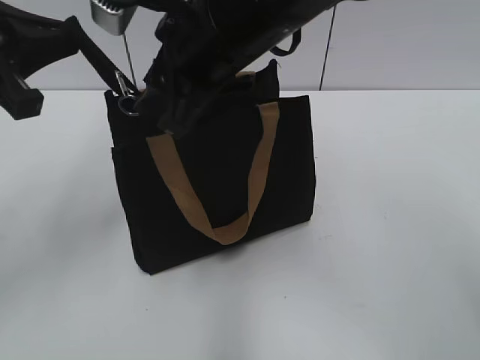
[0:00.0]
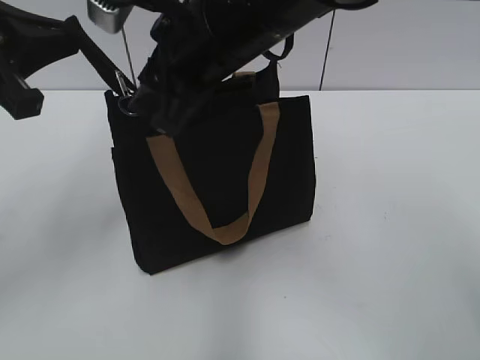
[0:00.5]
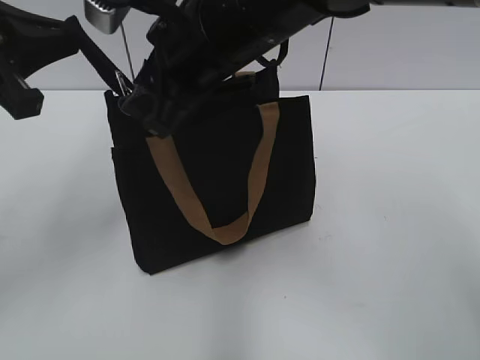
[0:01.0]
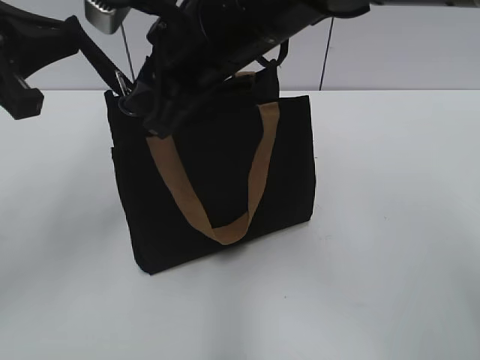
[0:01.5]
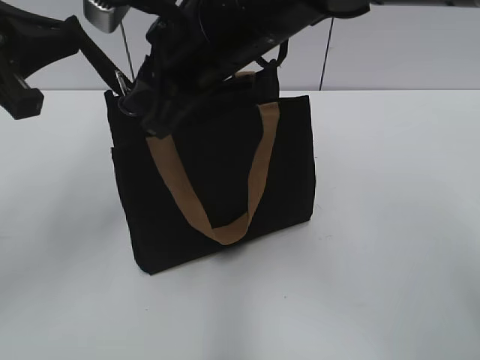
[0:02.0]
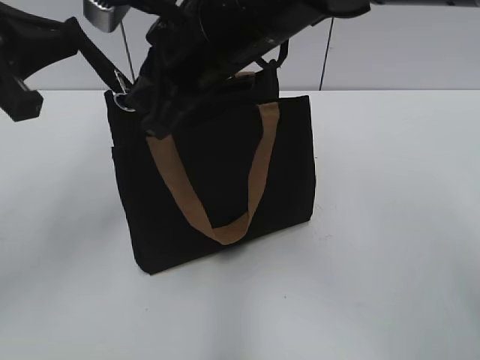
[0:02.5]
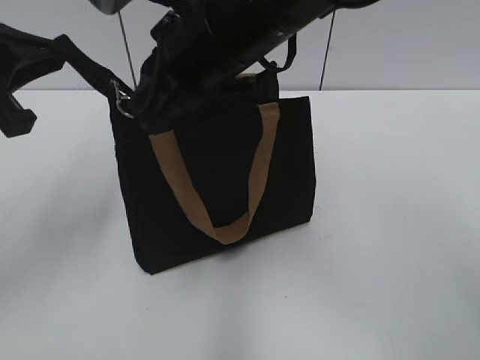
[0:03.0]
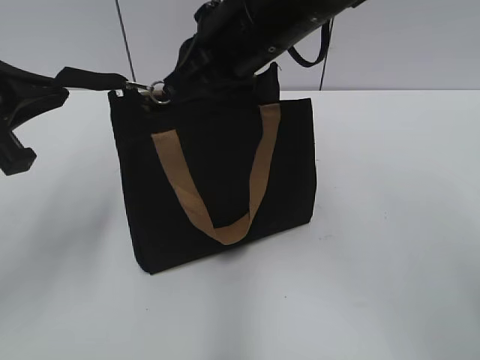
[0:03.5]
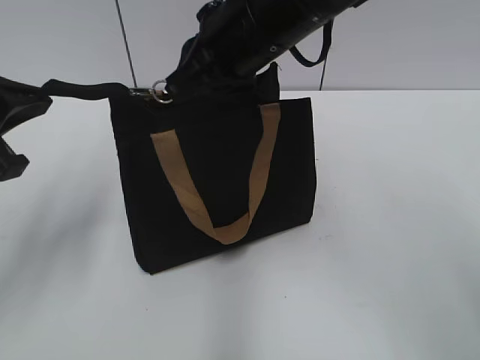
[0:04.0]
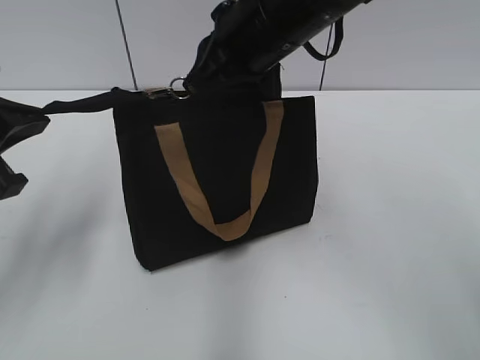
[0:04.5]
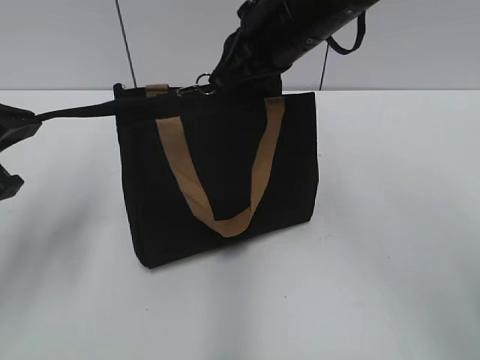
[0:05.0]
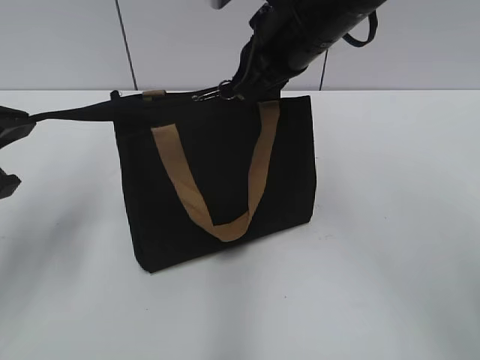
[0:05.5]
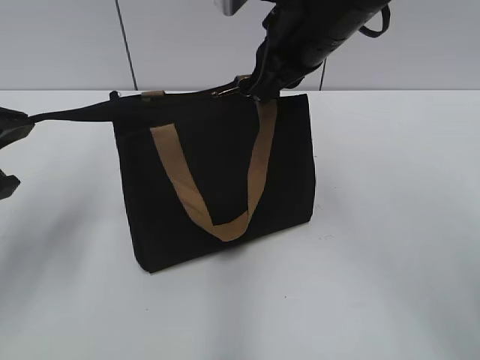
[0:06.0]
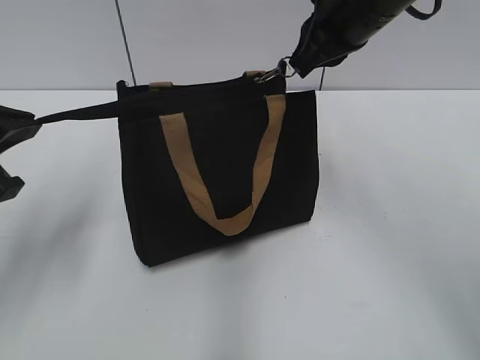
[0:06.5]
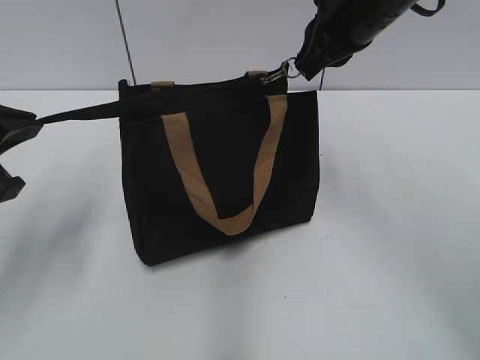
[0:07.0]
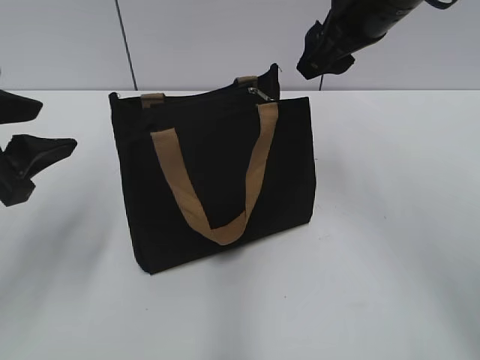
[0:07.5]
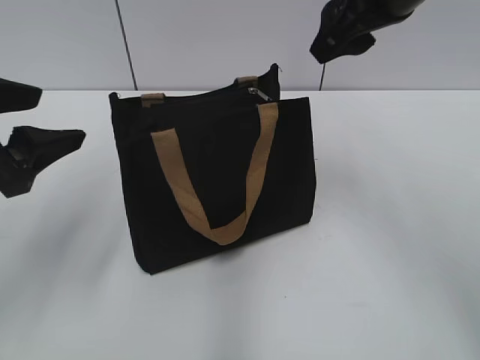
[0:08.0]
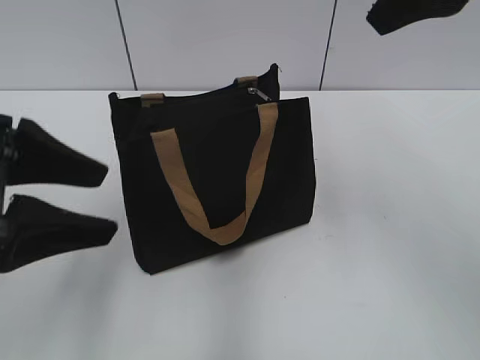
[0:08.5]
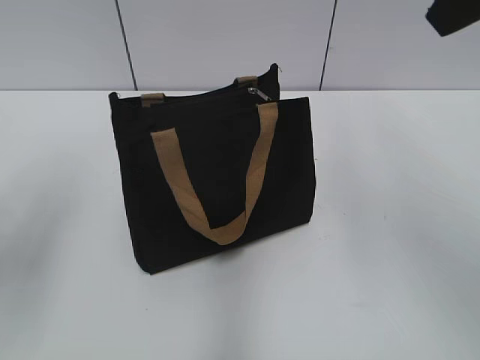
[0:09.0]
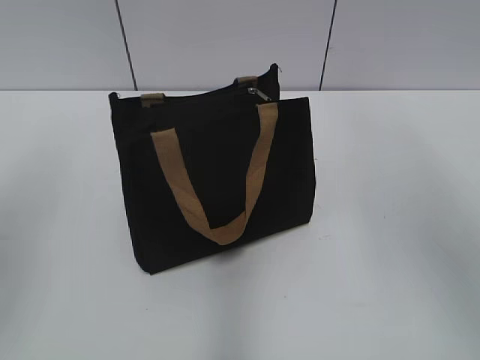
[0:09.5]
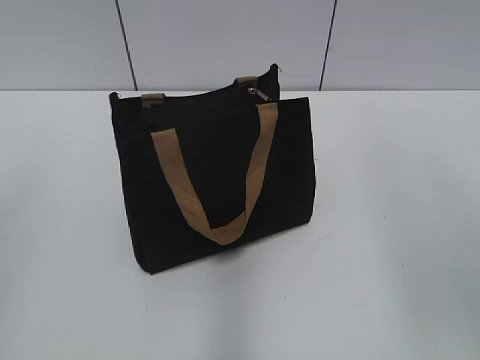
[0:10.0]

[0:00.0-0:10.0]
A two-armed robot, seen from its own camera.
Step, 0:00.0 to 0:07.0: Zip up the bag with your right hand.
0:00.0 to 0:02.0: The two grippers keep their place.
0:02.0 to 0:04.0: The left gripper shifts by about 5 cm.
0:04.0 to 0:06.0: The right gripper travels to the right by about 5 cm.
0:06.0 to 0:08.0: The left gripper opens its fingers, while the right gripper is displaced to the right by some 5 cm, and opens.
0:08.0 to 0:10.0: The right gripper shifts about 20 cm backward, upward and to the right. The left gripper travels backward, upward and to the left by some 15 cm.

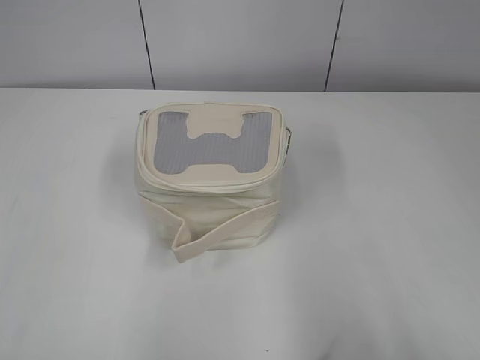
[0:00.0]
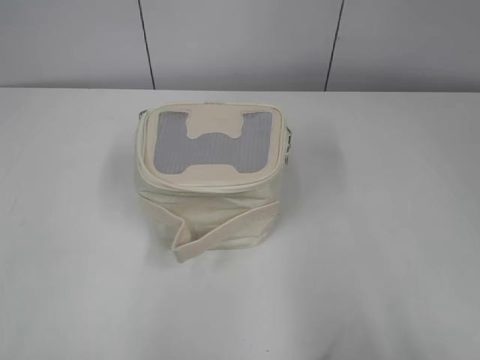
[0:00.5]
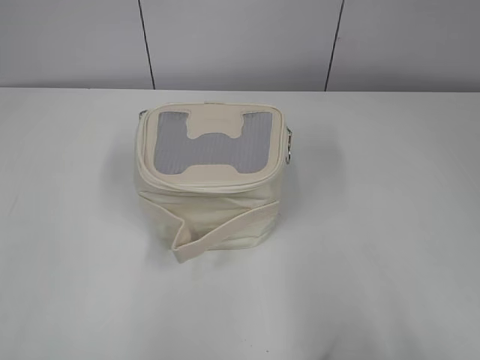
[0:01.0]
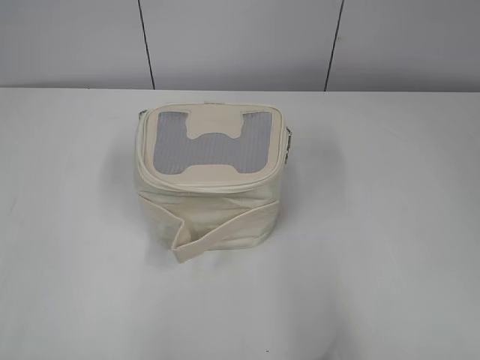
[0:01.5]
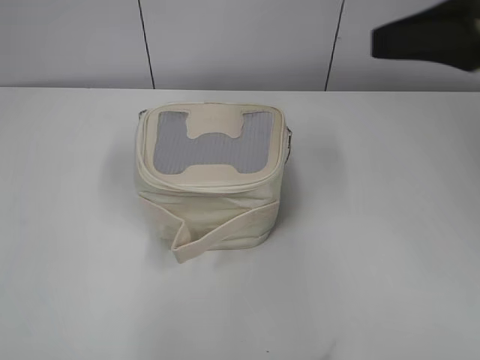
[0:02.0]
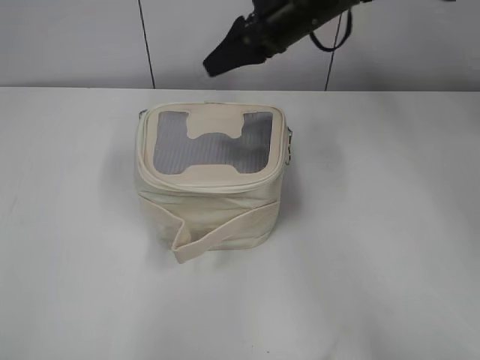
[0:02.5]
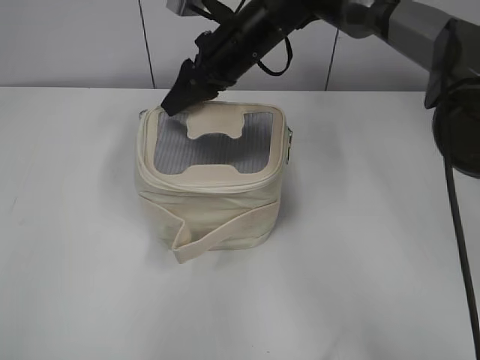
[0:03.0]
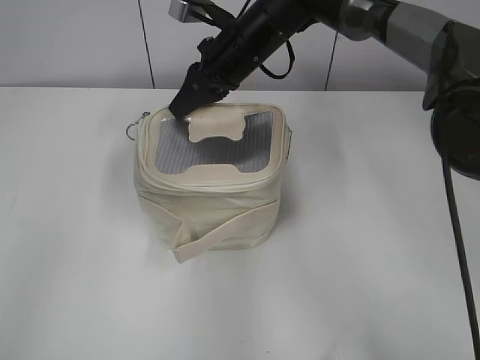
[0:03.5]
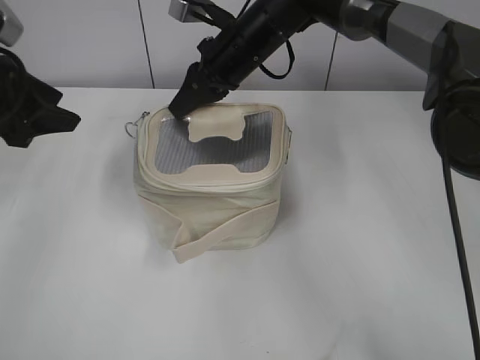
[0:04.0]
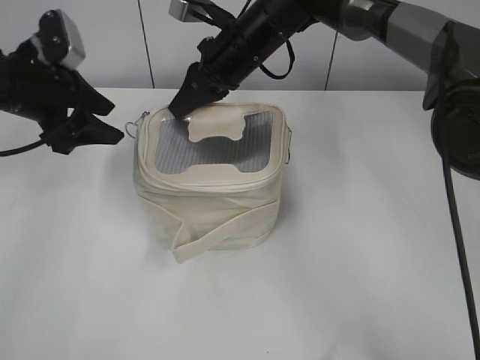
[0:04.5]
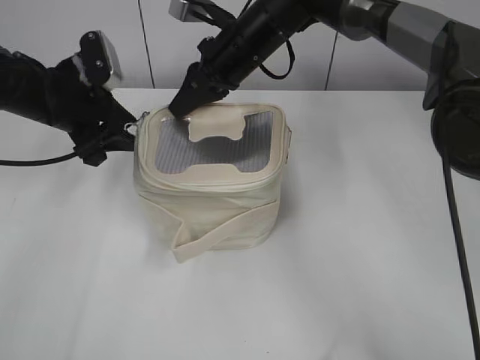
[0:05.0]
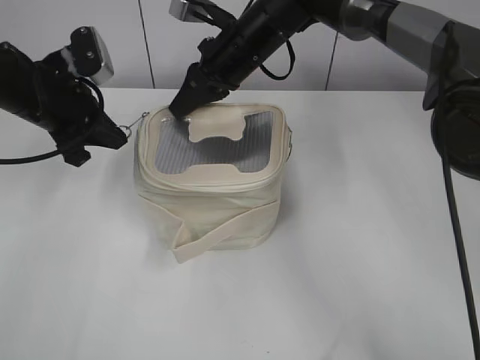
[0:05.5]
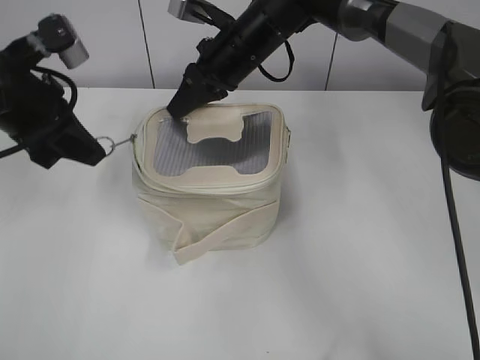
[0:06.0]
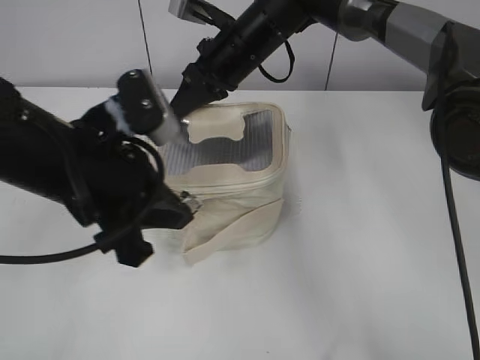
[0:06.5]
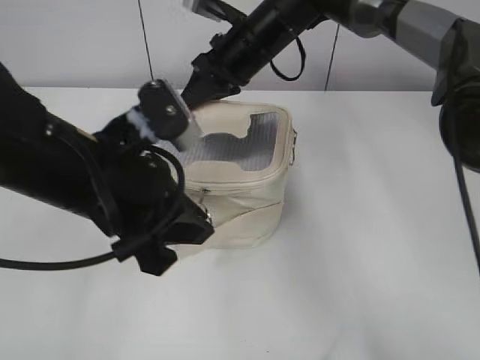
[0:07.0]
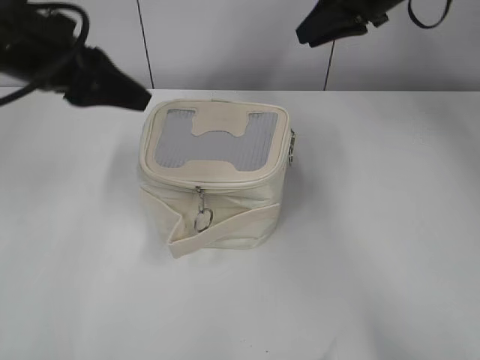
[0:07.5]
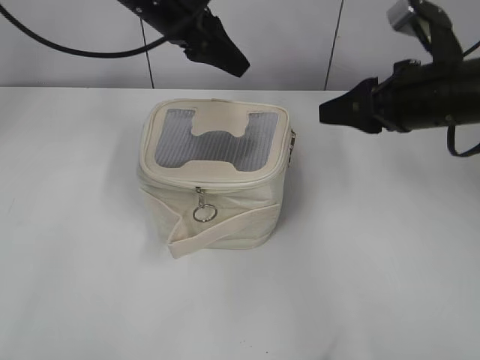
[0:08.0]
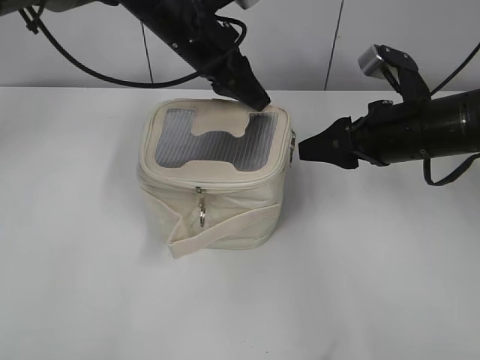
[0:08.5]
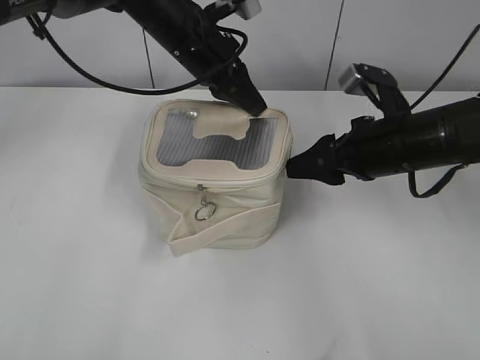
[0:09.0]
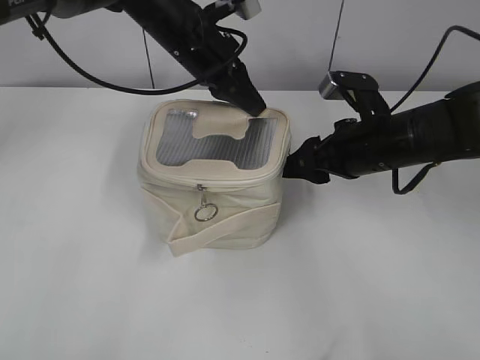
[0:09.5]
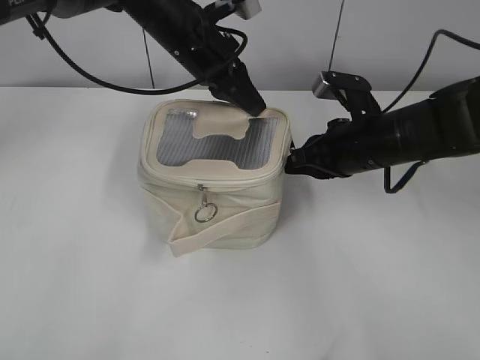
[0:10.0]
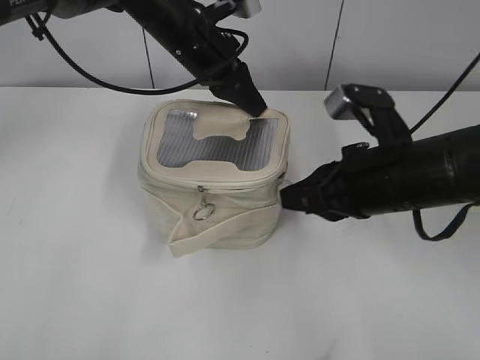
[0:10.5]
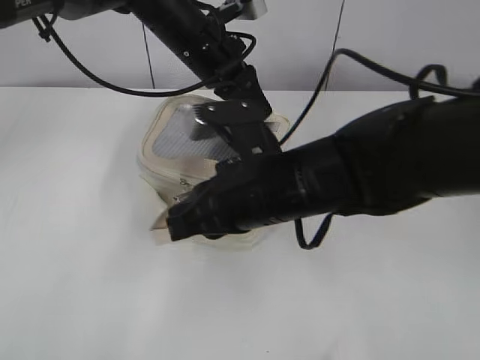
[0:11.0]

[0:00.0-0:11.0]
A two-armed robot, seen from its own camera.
Step, 0:00.0 to 0:06.5: Zip up the bag with your left hand.
0:02.0 to 0:03.5: The right gripper is displaced forward, to the left and downward by about 35 cm, and closes its fingers. The left gripper shifts roughly 15 cm forward.
0:03.5 to 0:05.5: The left gripper shifts roughly 25 cm forward and downward, and closes up.
0:05.5 to 0:07.5: The right gripper shifts some 20 cm to the right and upward, and opens; the left gripper moves backward and upward, some 15 cm, and opens up.
0:07.5 to 0:09.0: The right gripper goes about 20 cm backward and downward, and opens. The left gripper travels forward and to the right by about 20 cm, and closes its fingers.
0:09.0 to 0:11.0: The right gripper goes approximately 15 cm to the left and backward, and closes its fingers.

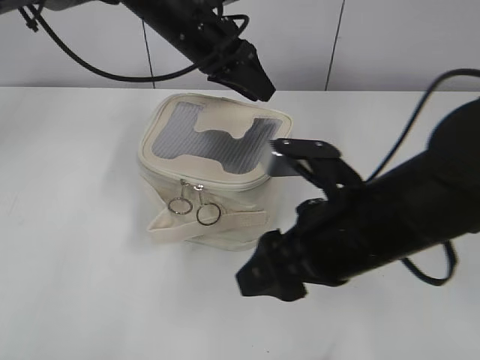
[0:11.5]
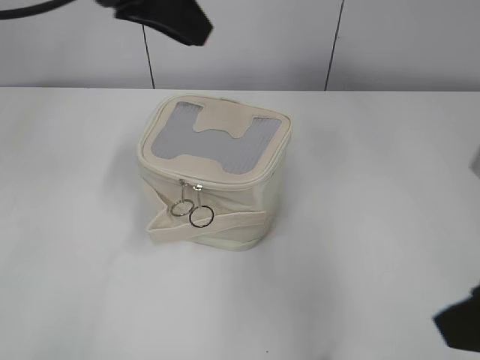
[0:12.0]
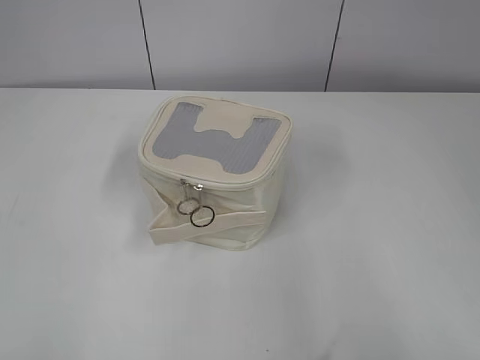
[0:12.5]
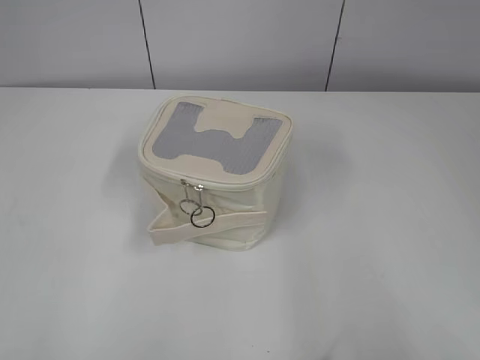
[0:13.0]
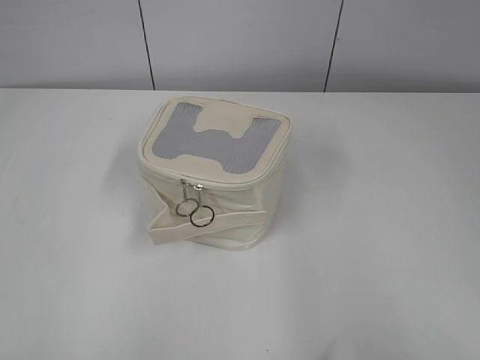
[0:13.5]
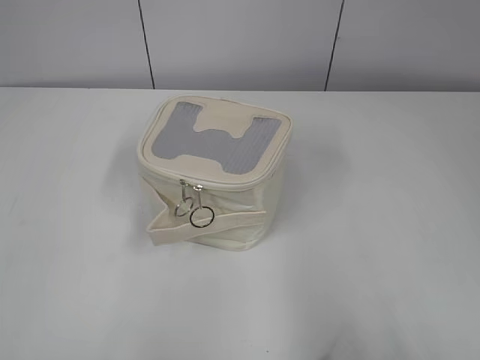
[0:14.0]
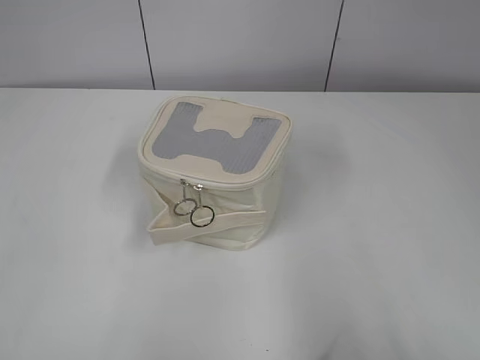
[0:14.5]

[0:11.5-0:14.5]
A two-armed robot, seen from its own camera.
0:11.5 to 0:13.0: The left gripper goes some 50 cm backward and to the left; the right gripper travels to the right, backward and upward by roughly 30 cm.

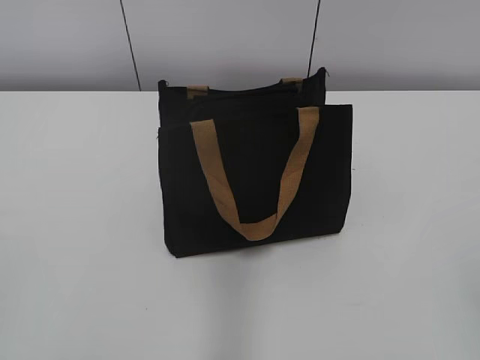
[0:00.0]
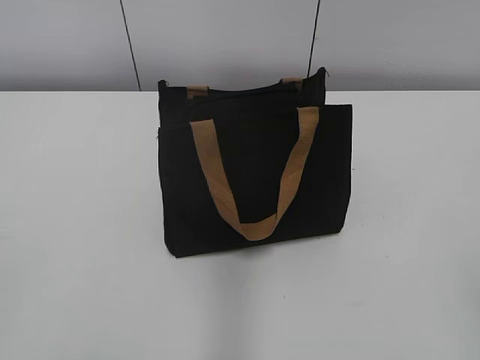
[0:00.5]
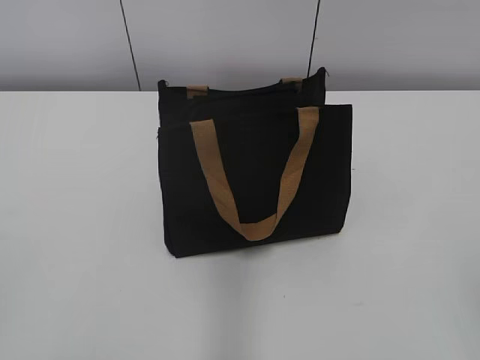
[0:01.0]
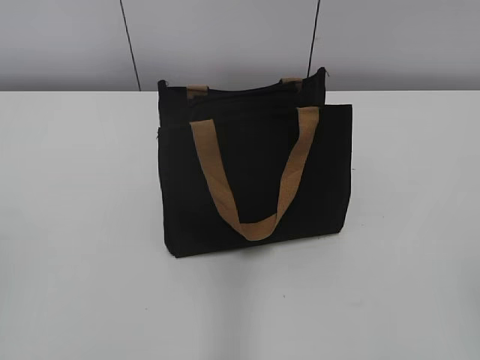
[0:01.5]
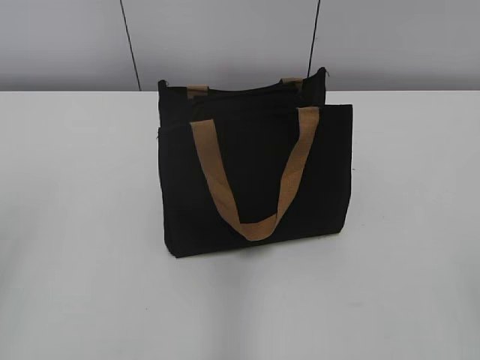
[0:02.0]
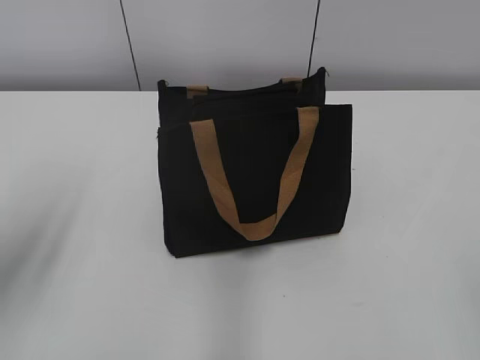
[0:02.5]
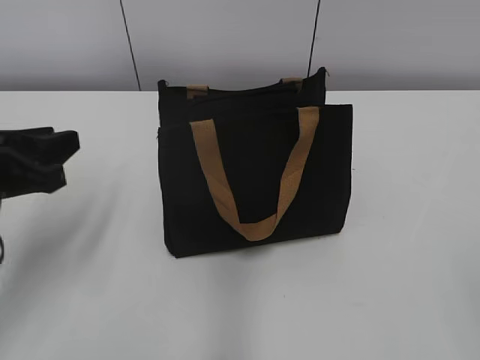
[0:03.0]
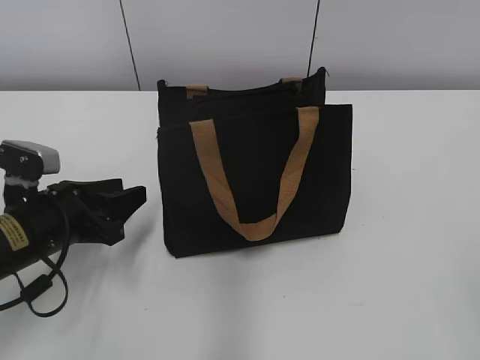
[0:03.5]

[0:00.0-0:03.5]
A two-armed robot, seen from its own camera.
0:02.0 to 0:03.5: The left gripper goes about 30 cm downward, forward and to the right.
